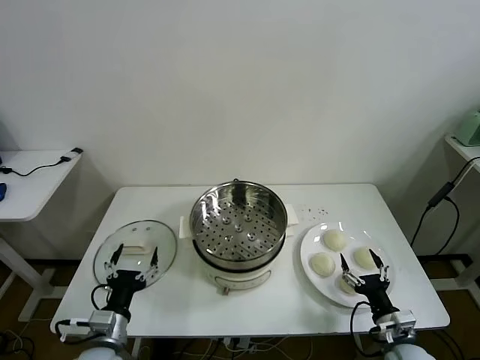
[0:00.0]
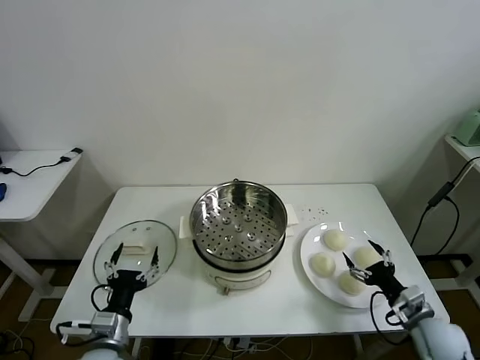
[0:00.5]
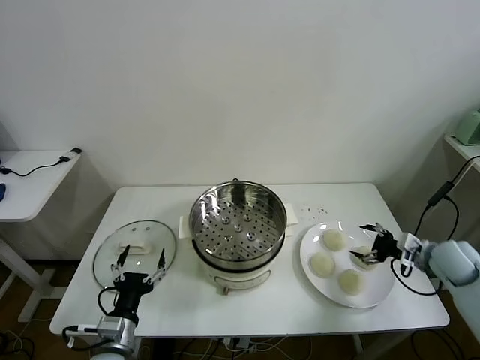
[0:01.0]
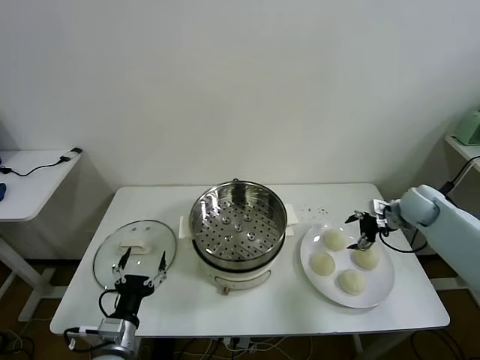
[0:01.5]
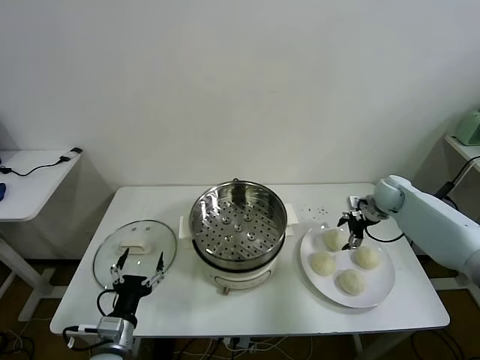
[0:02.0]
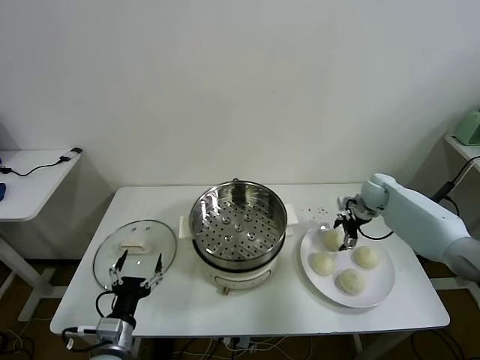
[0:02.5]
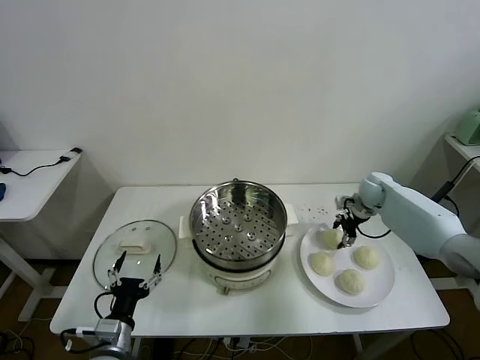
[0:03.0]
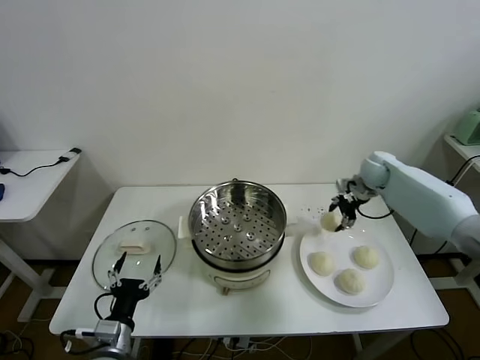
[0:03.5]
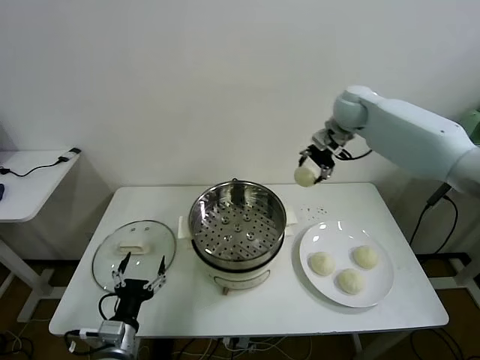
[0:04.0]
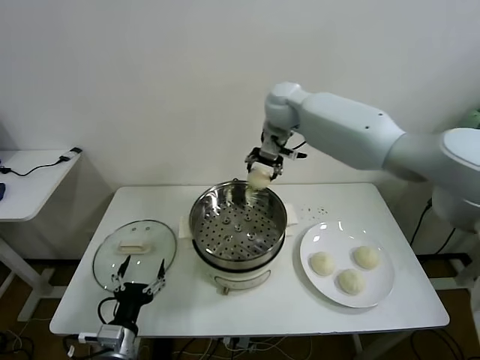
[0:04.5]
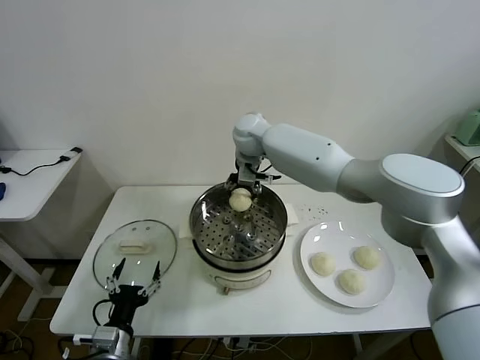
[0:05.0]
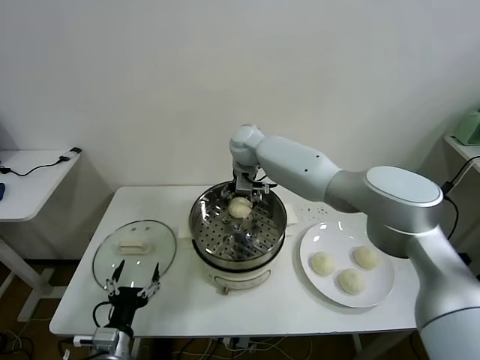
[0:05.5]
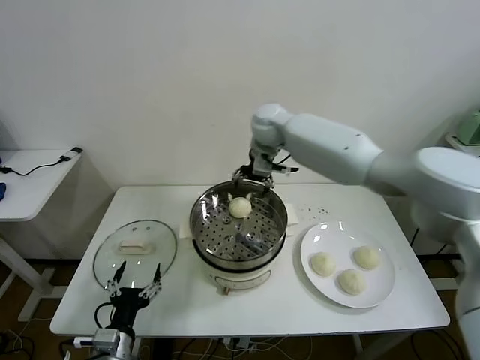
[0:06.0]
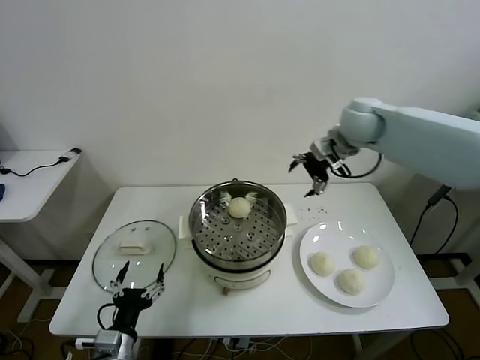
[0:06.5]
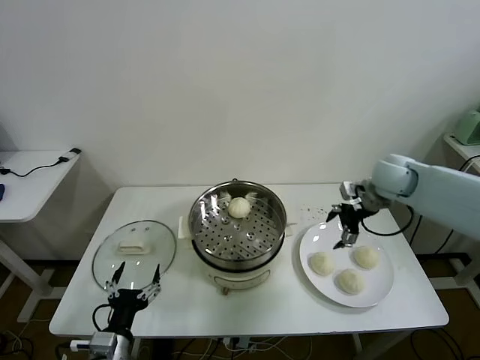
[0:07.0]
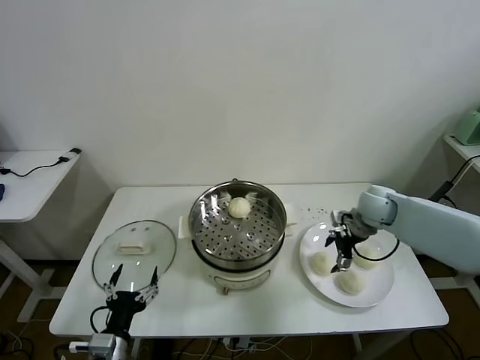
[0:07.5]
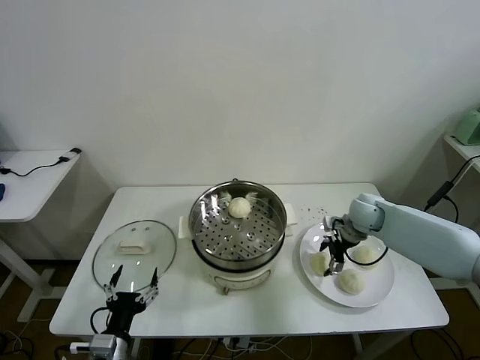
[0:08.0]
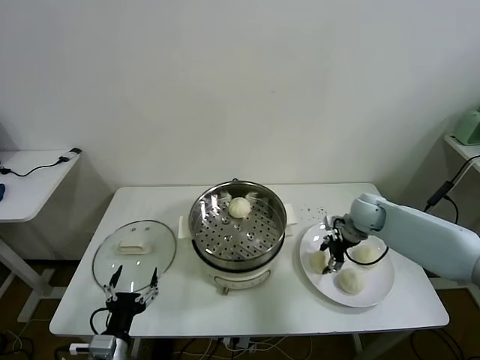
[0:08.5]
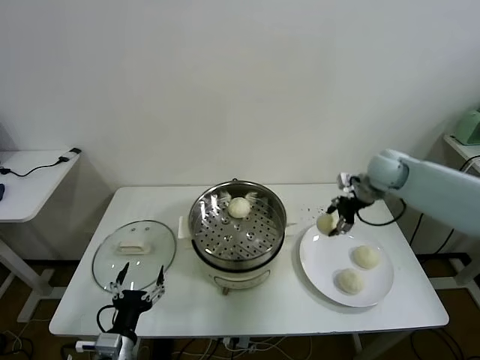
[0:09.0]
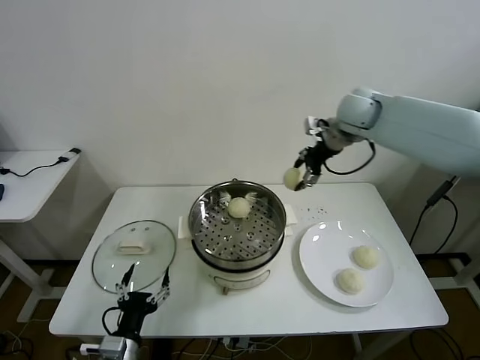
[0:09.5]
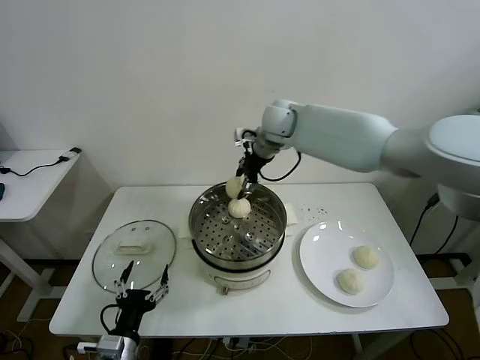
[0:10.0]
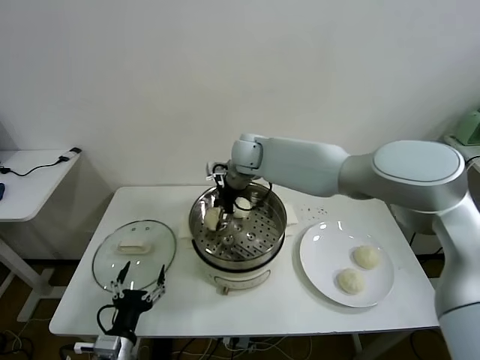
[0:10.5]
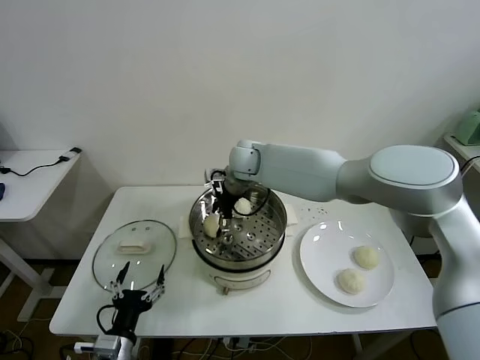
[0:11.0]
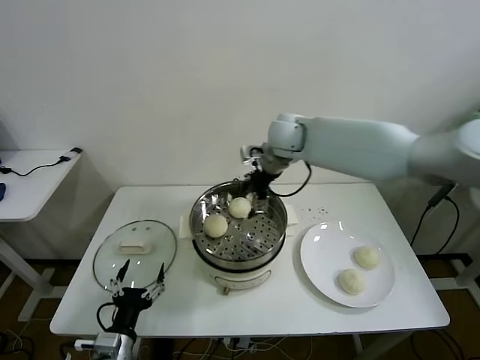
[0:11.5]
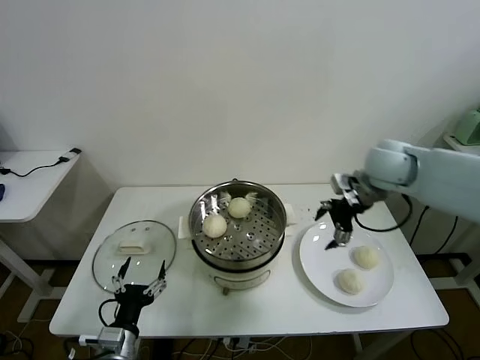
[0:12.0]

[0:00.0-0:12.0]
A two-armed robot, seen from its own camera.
Task of the whole recording: take steamed baozi put them in steamer then cover it.
Step, 0:00.0 to 0:02.5: Grasp the baozi in the plate with right gripper.
Step, 0:03.5 to 0:05.5: Place the baozi on the steamer with right gripper.
Step, 0:06.0 to 0:08.0: Grasp the baozi in the plate with right gripper.
Step, 0:08.5 to 0:11.0: Place the baozi on the steamer with right gripper.
0:02.0 to 0:04.0: The right gripper moves upward and to the left, roughly 30 cm, and closes up.
0:04.0 to 0:06.0: The right gripper shifts about 10 cm to the left, and opens its fingers.
0:06.0 to 0:08.0: The right gripper goes roughly 35 cm downward, to the right and backward.
0:08.0 to 0:10.0: The right gripper travels to the left and upward by roughly 35 cm, and closes.
0:10.0 to 0:12.0: The right gripper heads to the right and backward, covering about 25 cm, and opens its fingers.

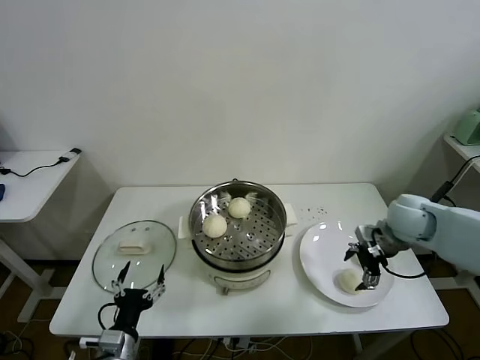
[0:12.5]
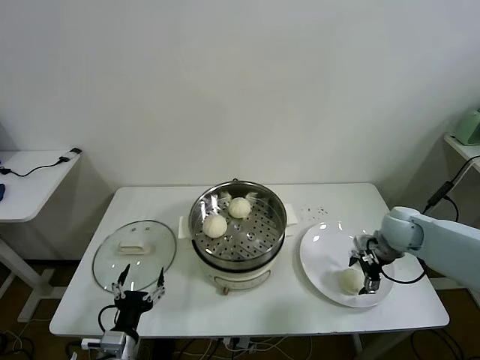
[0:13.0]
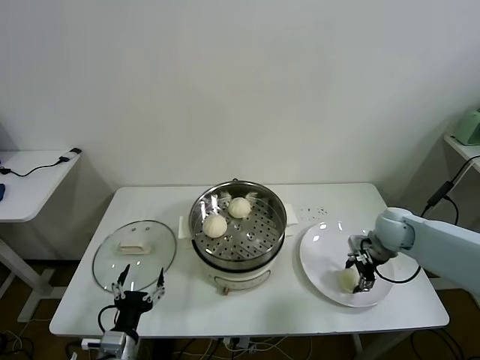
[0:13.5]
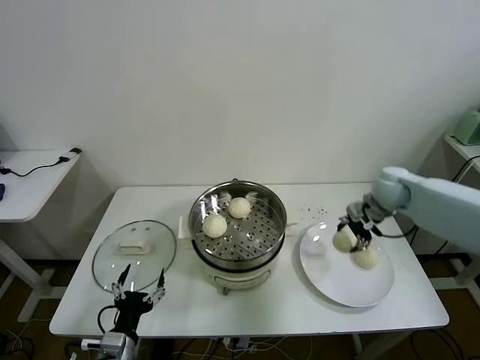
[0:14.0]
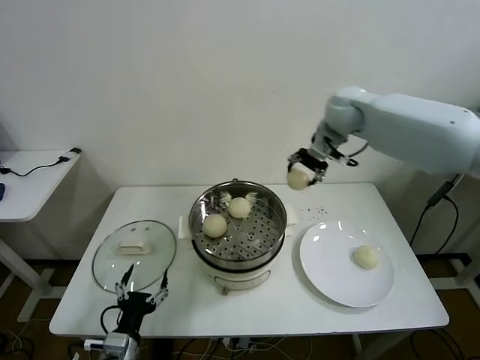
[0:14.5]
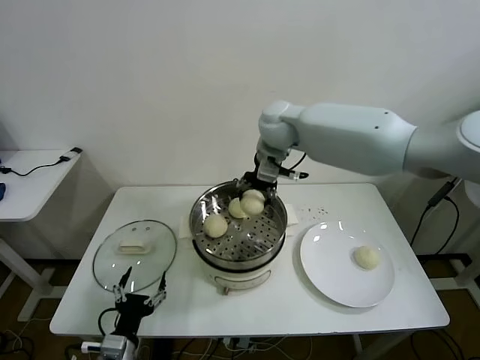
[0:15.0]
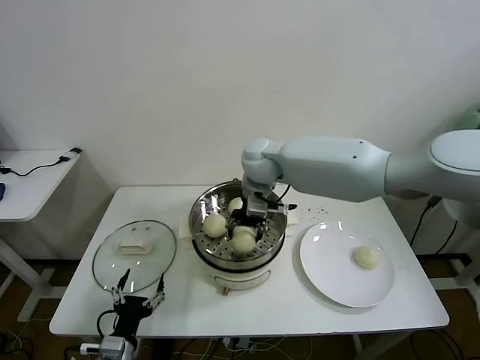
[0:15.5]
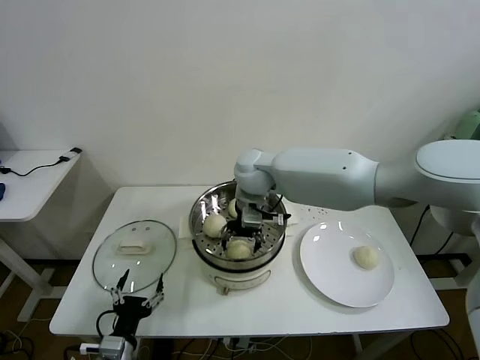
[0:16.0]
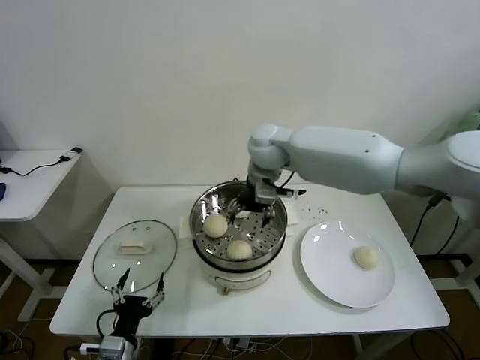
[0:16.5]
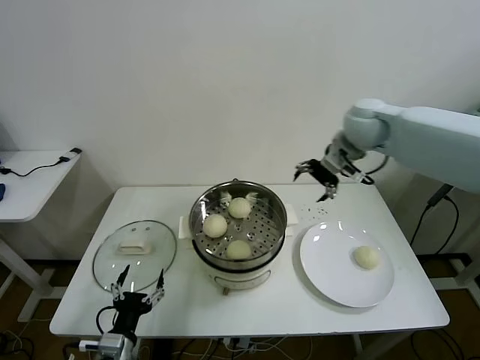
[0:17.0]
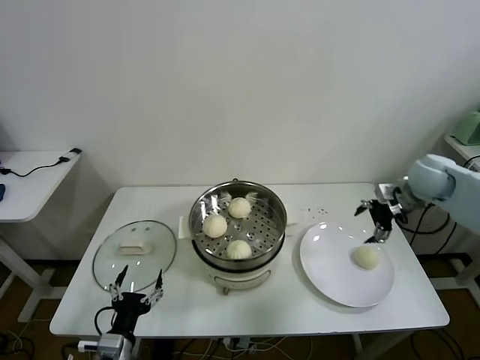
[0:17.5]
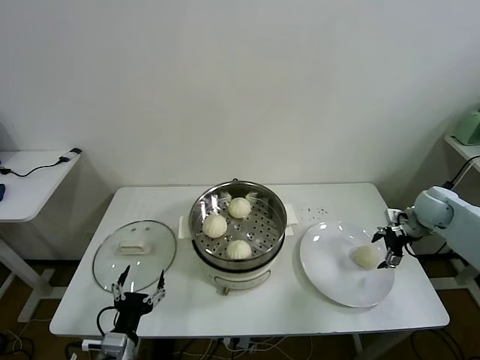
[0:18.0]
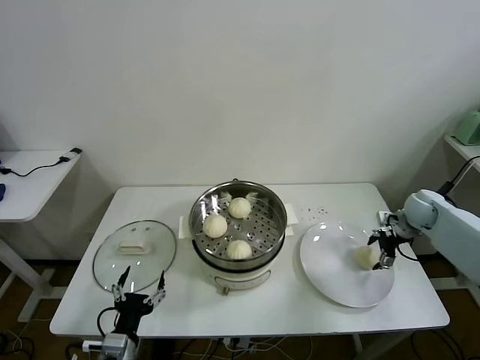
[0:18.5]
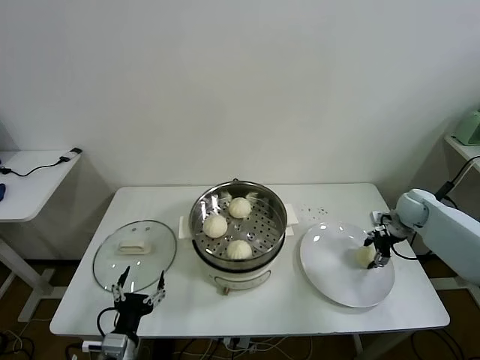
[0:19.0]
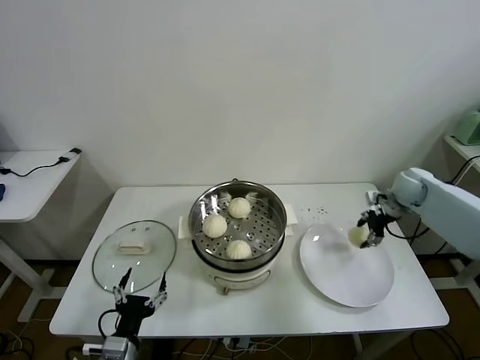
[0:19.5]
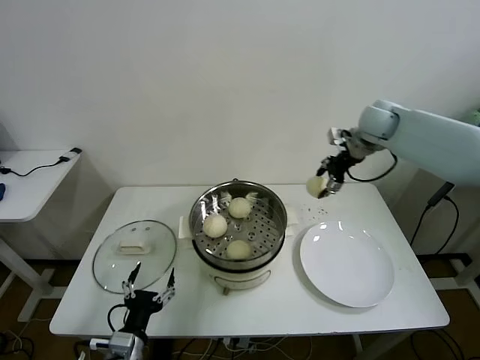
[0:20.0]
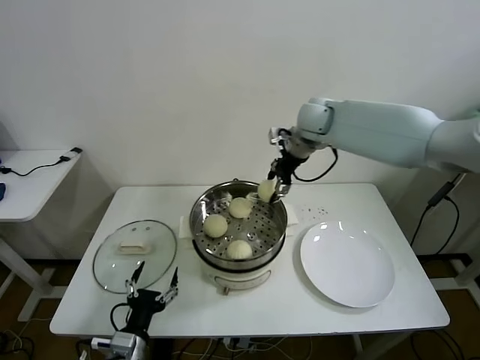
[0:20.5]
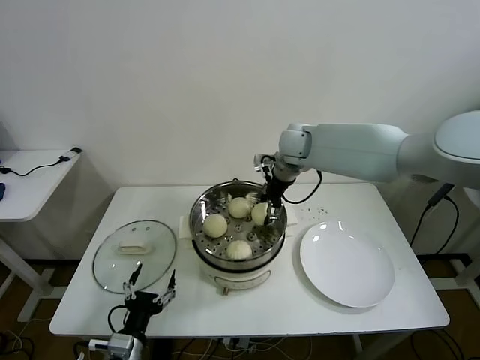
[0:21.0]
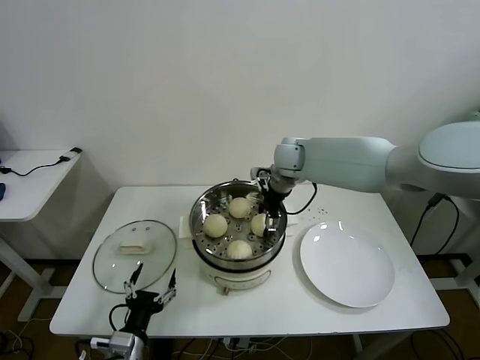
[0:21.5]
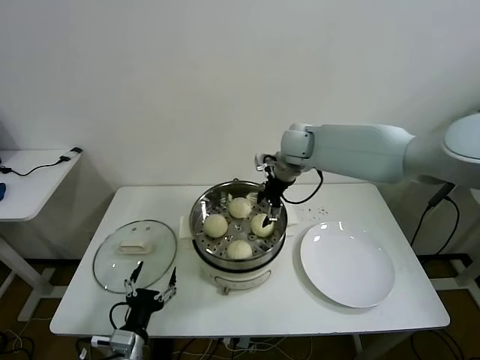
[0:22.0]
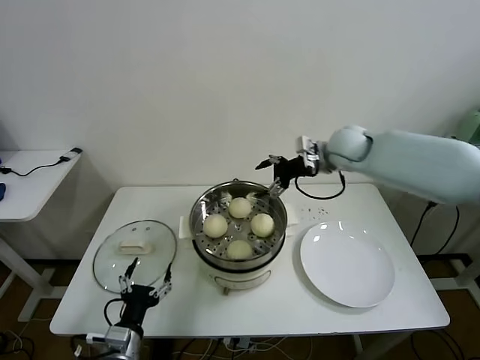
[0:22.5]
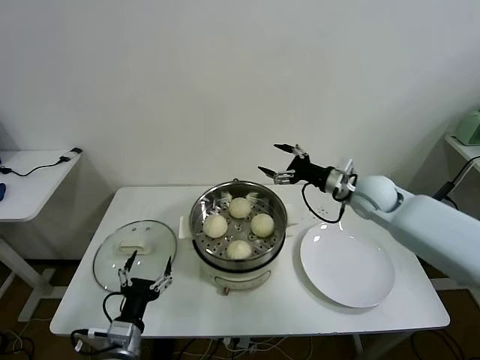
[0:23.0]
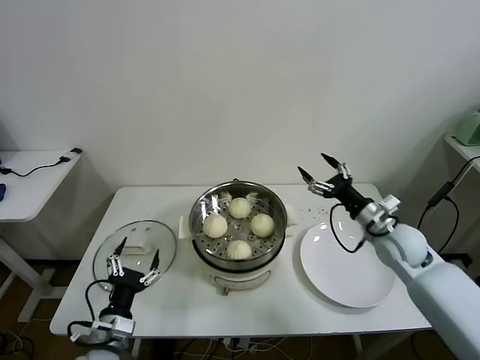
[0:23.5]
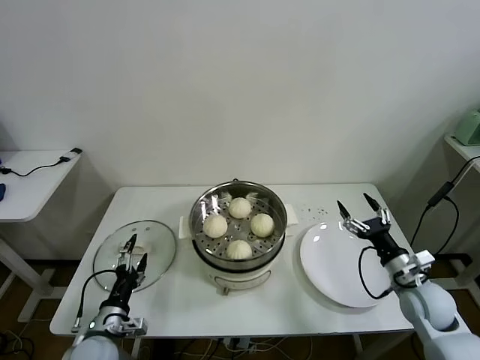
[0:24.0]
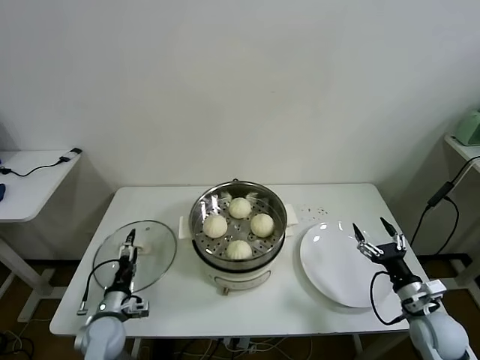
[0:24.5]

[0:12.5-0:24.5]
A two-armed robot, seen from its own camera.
Task of the whole recording: take steamed baozi put them in steamer then cover it.
Step, 0:14.0 to 0:16.0: Place the baozi on the steamer with right gripper.
Step, 0:16.5 to 0:19.0: Grasp the baozi in the plate with right gripper.
Step, 0:19.5 to 0:21.5: Place the baozi on the steamer with right gripper.
0:12.5 to 0:14.5: The right gripper heads upward, to the left and forward, covering some 30 cm, and closes up.
0:14.5 to 0:16.5: The right gripper heads to the left and downward, covering approximately 15 cm, and opens up.
0:16.5 to 0:18.5: The right gripper moves to the right and downward, about 40 cm.
0:18.5 to 0:20.5: The right gripper heads to the left and upward, covering approximately 35 cm, and closes.
0:20.5 to 0:22.5: The right gripper moves to the right, roughly 5 cm, and opens its fingers.
0:22.5 to 0:24.5: The right gripper goes approximately 40 cm backward, downward and to the right; the left gripper moves forward, to the left and downward, approximately 15 cm.

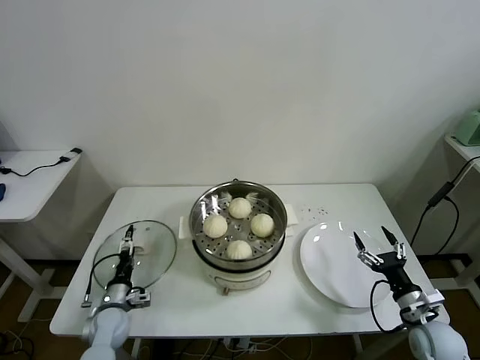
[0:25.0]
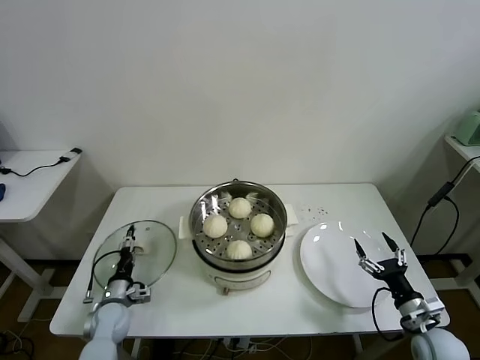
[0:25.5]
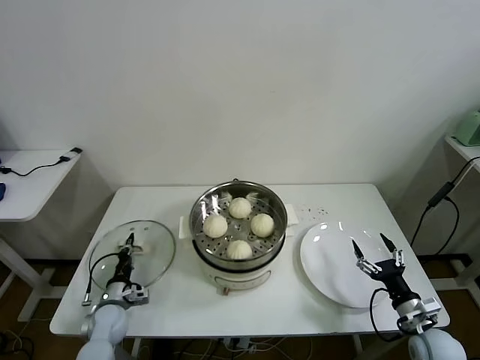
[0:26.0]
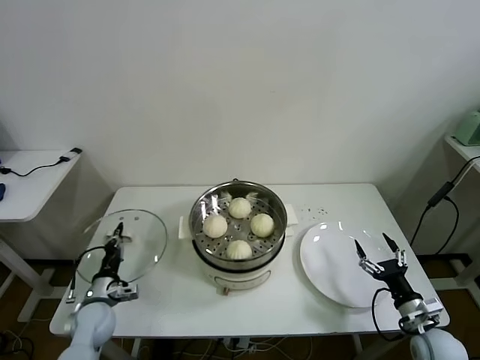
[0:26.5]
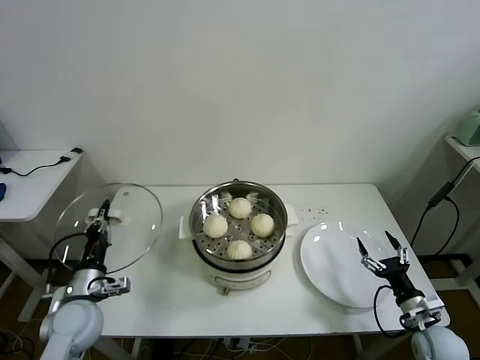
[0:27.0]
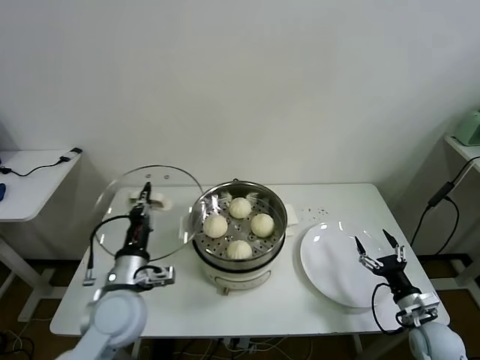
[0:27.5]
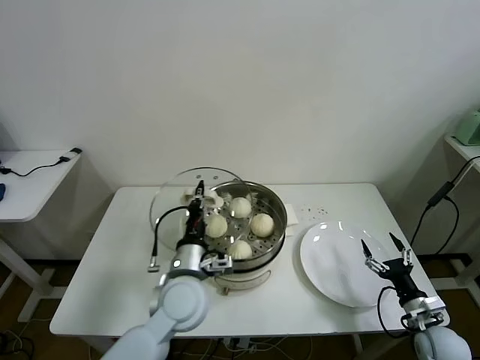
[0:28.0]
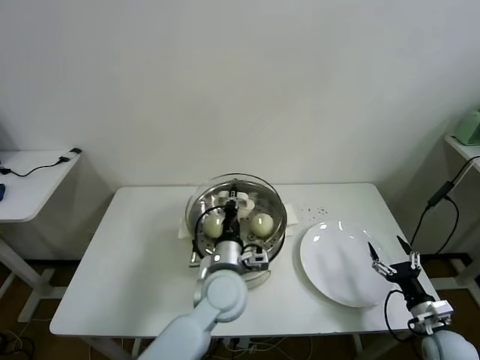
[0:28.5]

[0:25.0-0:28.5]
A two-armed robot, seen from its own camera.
Task of the whole recording: take steamed baozi put them in steamer then cover it.
0:25.0 to 0:27.0: The left gripper travels upward by approximately 15 cm, and closes up.
0:27.0 to 0:28.5: The left gripper shifts about 30 cm to the right.
